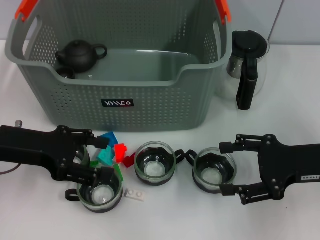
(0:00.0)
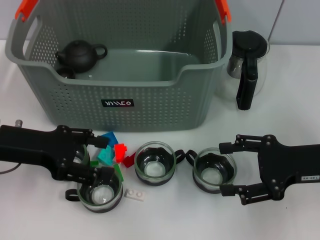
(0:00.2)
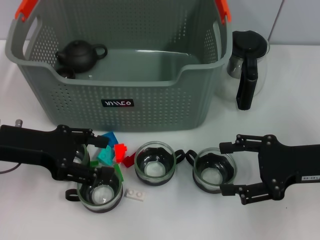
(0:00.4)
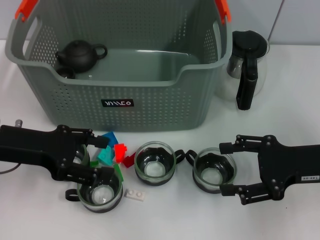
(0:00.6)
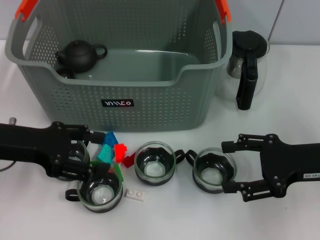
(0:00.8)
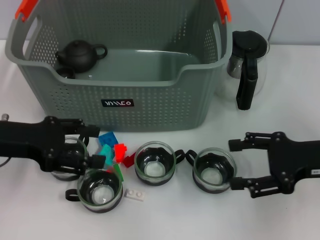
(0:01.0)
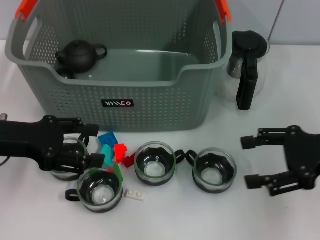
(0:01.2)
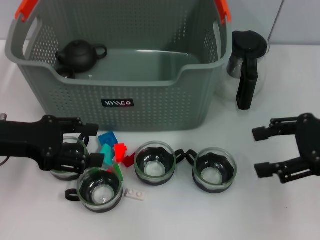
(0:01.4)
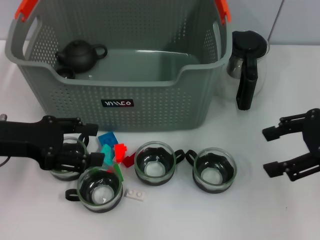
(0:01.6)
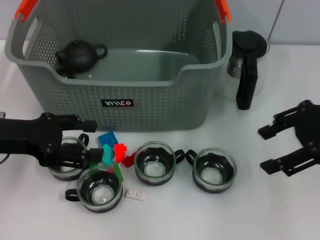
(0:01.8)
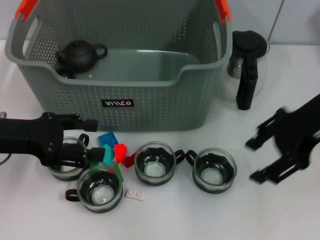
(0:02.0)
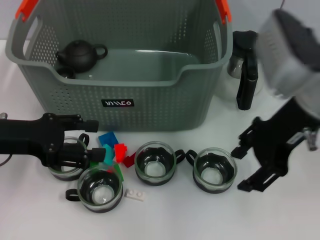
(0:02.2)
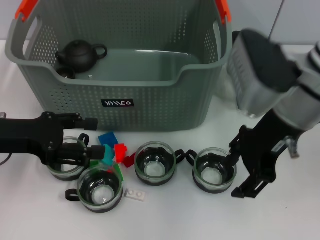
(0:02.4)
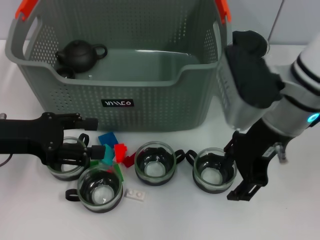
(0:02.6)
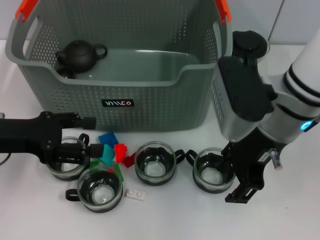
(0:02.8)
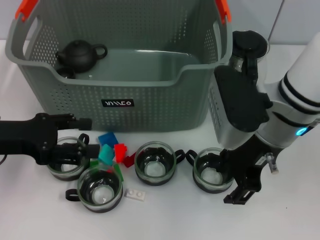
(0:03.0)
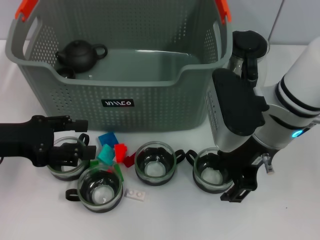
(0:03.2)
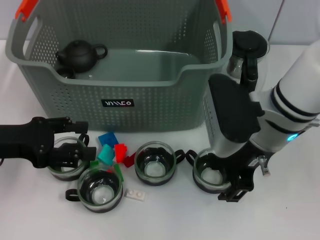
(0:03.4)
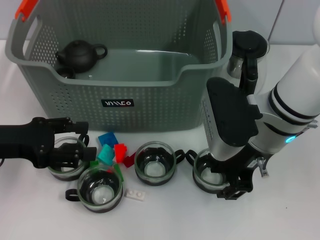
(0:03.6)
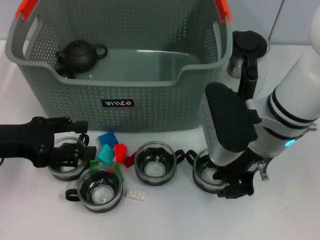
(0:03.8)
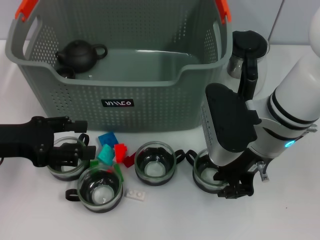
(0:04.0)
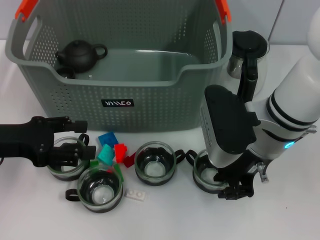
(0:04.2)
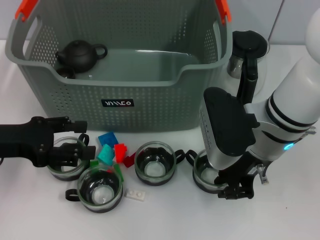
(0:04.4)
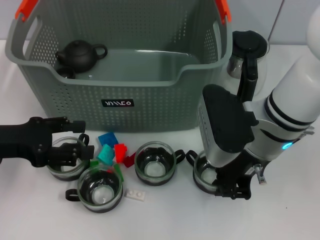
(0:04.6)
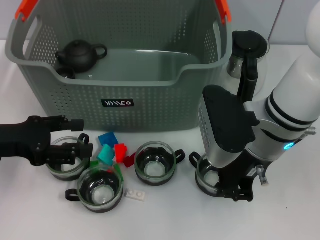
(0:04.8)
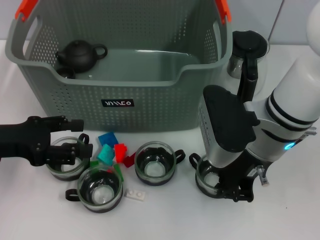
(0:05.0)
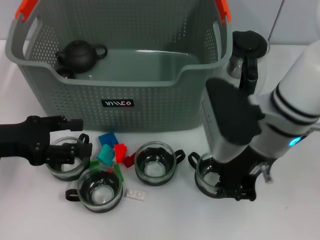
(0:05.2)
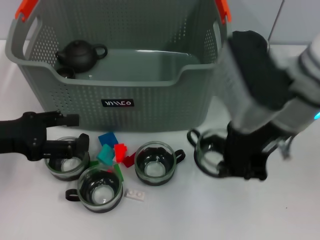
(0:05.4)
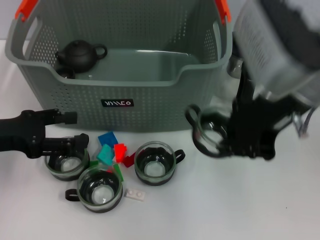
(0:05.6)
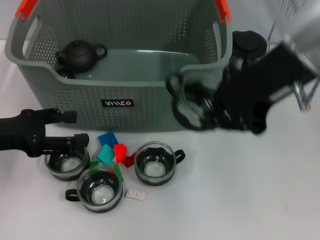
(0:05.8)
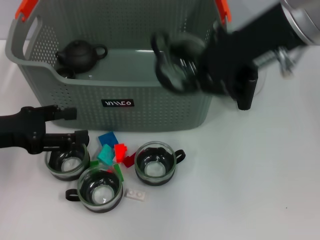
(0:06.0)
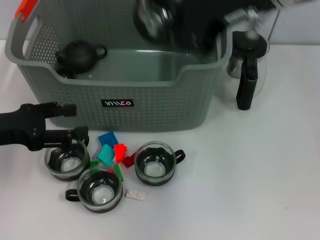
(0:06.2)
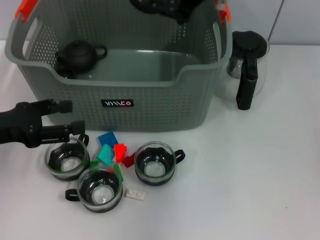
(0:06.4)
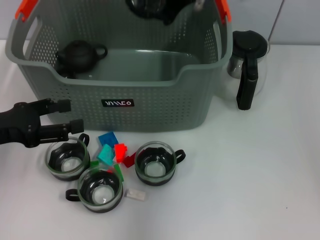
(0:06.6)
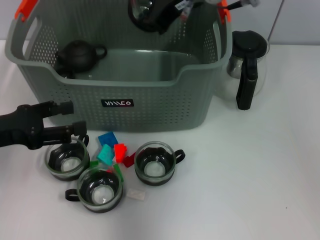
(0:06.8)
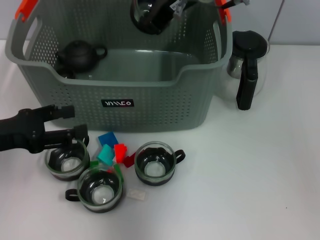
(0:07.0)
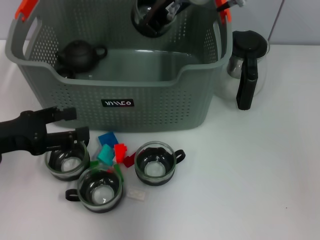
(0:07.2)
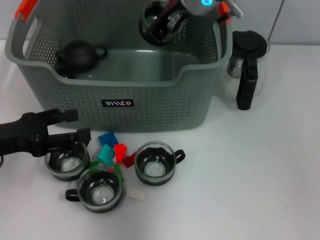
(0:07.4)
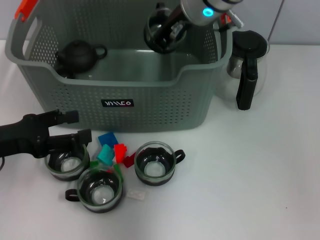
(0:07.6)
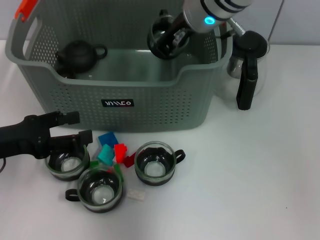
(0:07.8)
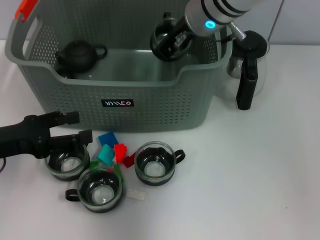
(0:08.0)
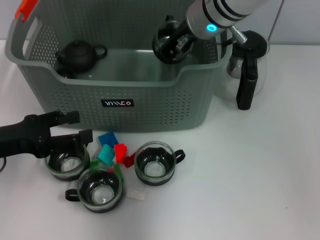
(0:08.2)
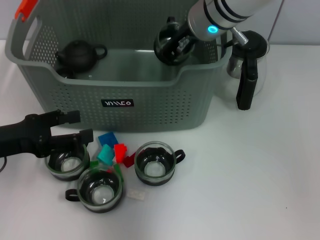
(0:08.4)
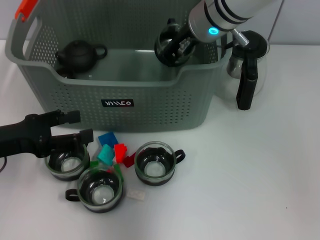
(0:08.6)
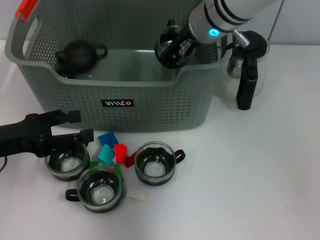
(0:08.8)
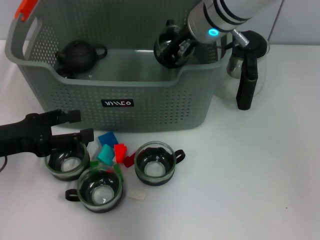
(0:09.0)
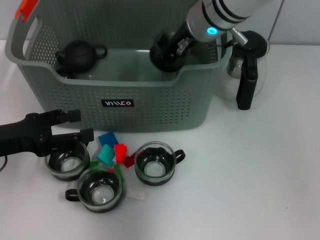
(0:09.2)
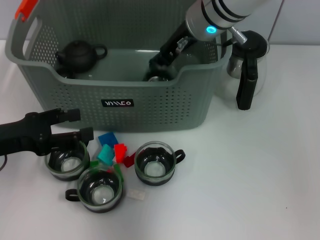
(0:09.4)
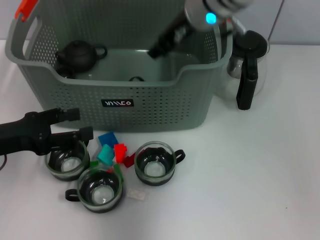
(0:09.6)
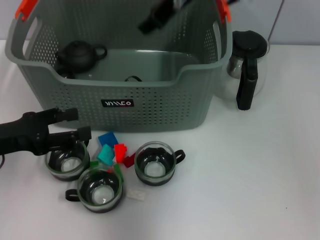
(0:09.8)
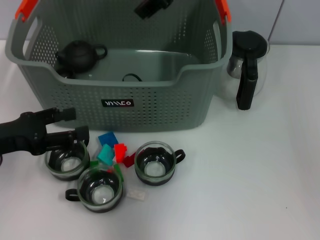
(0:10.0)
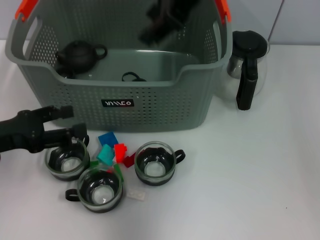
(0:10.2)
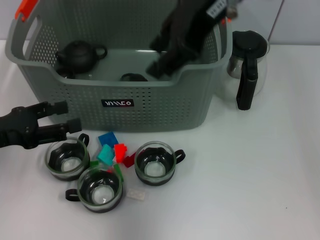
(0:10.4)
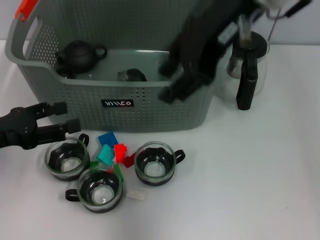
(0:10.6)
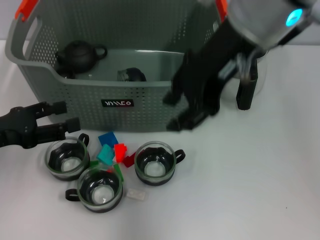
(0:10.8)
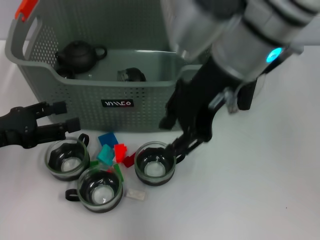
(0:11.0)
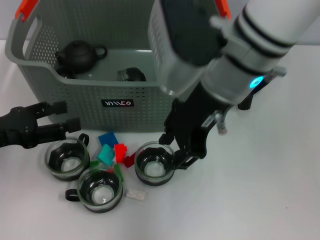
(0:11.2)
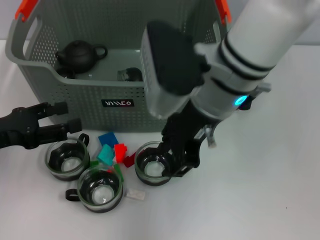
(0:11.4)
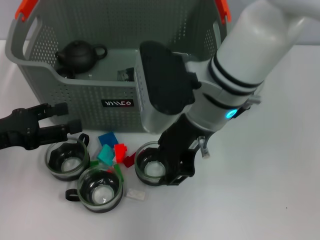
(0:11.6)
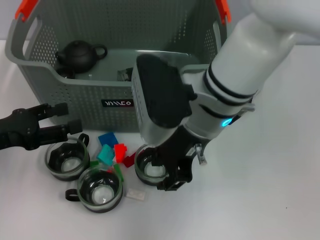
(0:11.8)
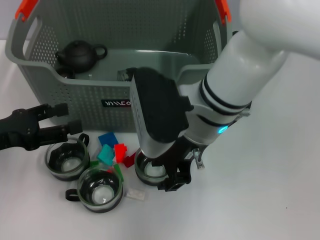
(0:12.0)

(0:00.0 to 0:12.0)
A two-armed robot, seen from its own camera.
Task of the whole recording: pick up the teacup on the table and place it into the storage bin, pick up the block on the table and place it into the storage bin.
Step, 0:00.0 - 0:05.2: Grasp the cup with right gripper.
Step, 0:05.4 - 0:09.8: Place the cup in the storage box with right gripper.
0:00.0 - 0:01.6: The right gripper shifts approximately 10 cm upward.
0:01.6 - 0:03.0: The right gripper moves to the left, about 15 cm.
0:03.0 - 0:04.4: The right gripper closes up.
0:04.4 - 0:06.0: The right gripper heads upward, covering about 15 cm.
0:06.0 - 0:07.6: The right gripper is displaced forward, downward and to the left by some 15 cm.
0:07.6 - 0:09.0: There are only small adjustments of the grippers.
0:09.0 - 0:10.4: The right gripper travels upward and backward by roughly 15 cm, and opens.
0:10.4 - 0:12.0: The right gripper goes about 20 cm downward.

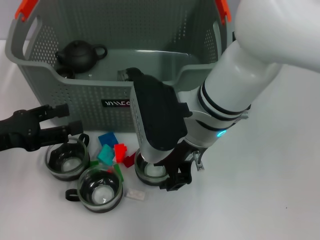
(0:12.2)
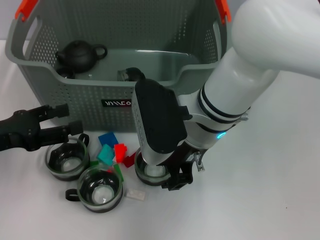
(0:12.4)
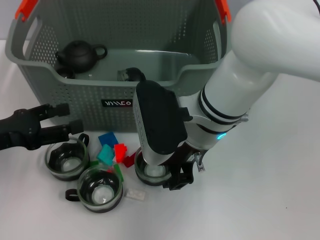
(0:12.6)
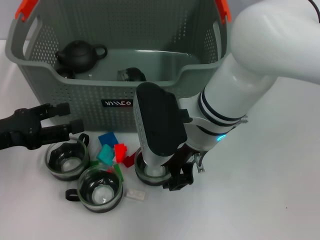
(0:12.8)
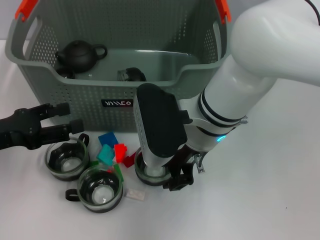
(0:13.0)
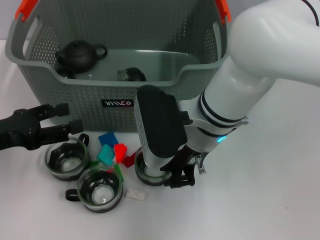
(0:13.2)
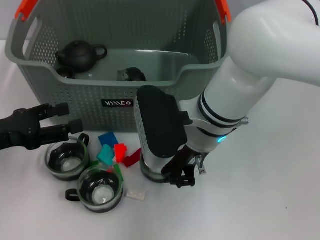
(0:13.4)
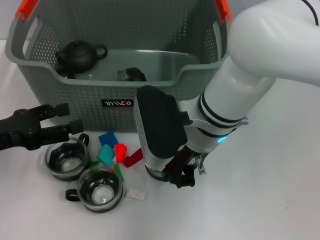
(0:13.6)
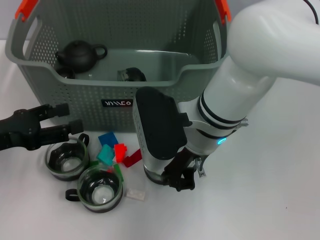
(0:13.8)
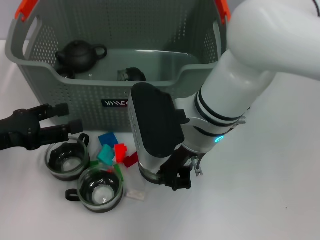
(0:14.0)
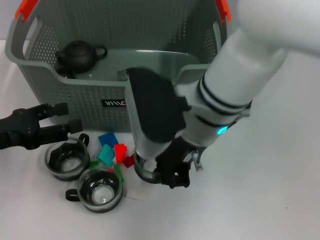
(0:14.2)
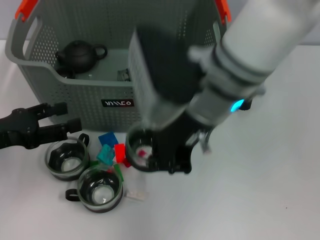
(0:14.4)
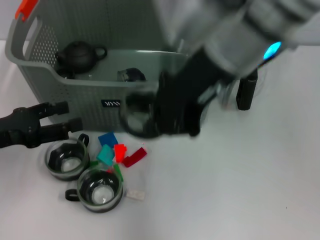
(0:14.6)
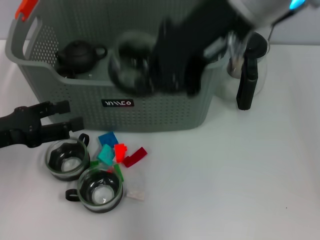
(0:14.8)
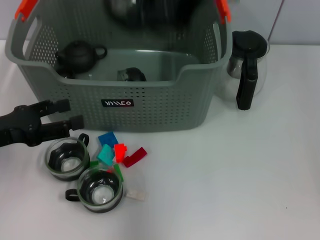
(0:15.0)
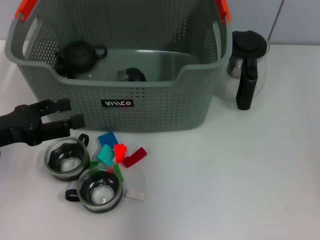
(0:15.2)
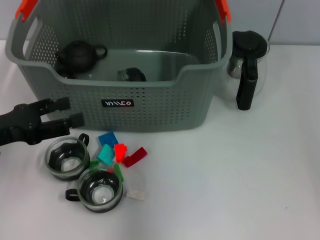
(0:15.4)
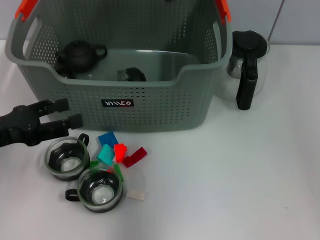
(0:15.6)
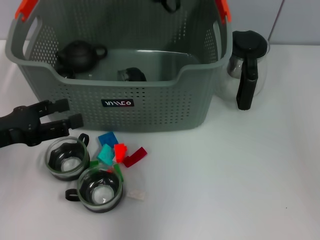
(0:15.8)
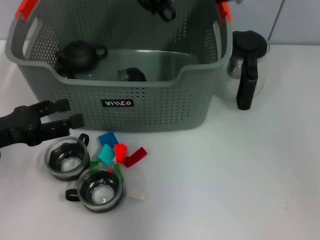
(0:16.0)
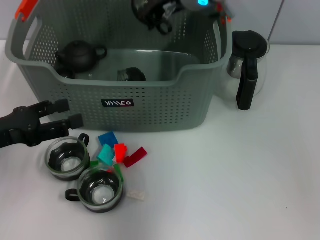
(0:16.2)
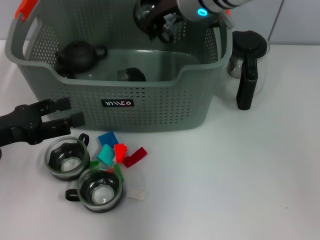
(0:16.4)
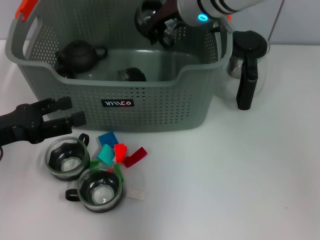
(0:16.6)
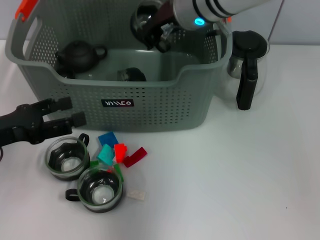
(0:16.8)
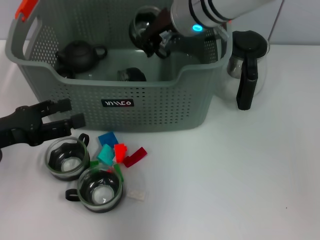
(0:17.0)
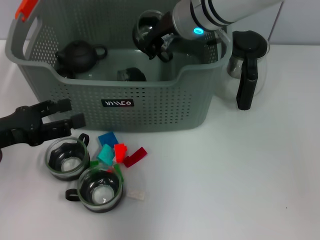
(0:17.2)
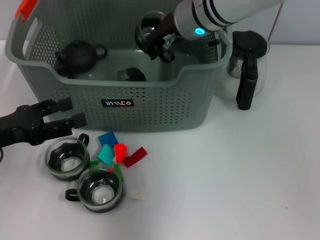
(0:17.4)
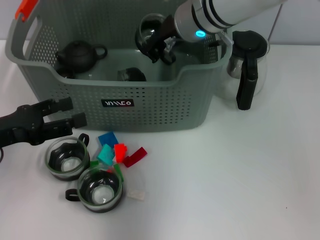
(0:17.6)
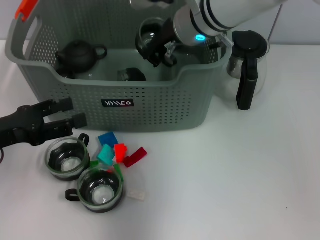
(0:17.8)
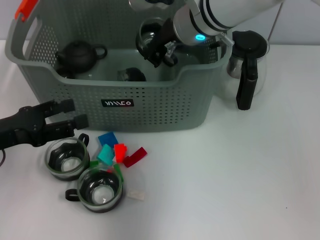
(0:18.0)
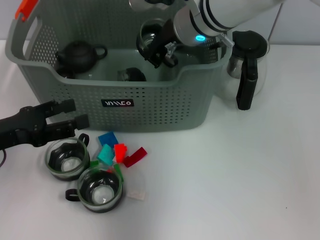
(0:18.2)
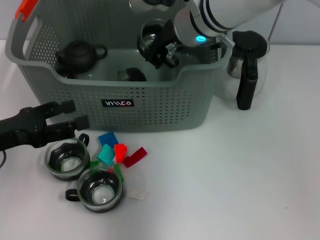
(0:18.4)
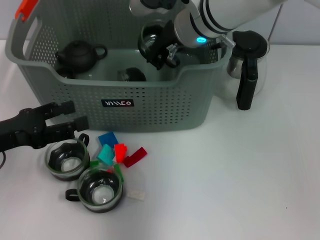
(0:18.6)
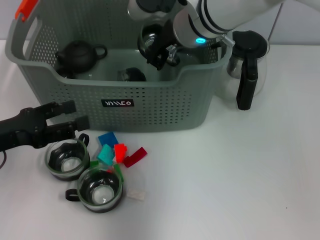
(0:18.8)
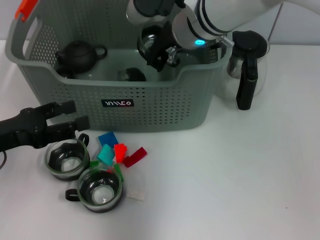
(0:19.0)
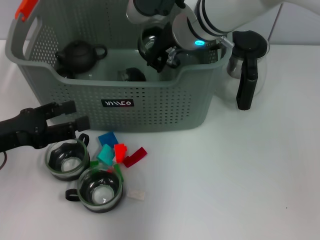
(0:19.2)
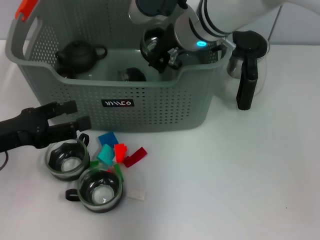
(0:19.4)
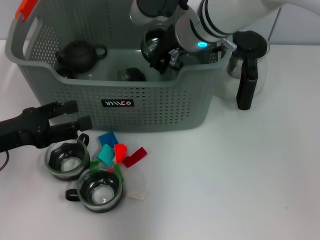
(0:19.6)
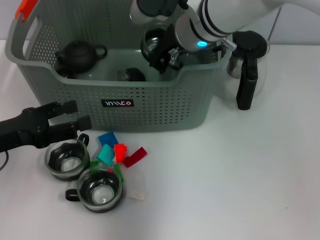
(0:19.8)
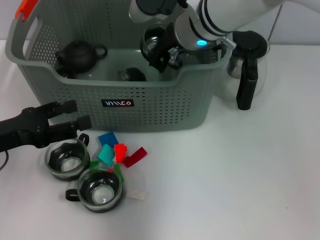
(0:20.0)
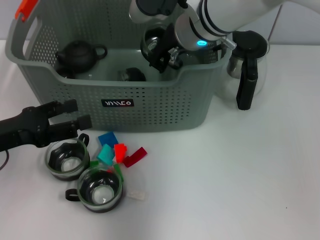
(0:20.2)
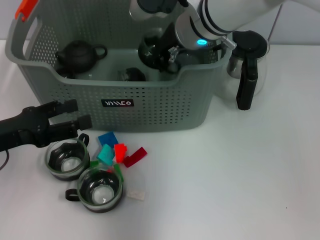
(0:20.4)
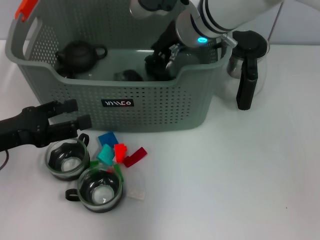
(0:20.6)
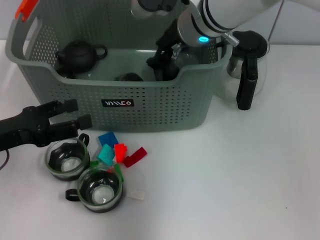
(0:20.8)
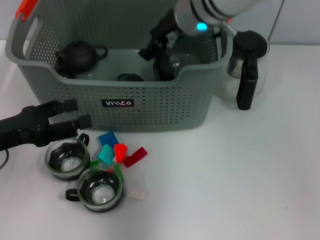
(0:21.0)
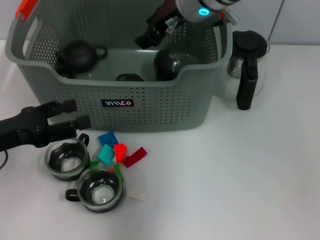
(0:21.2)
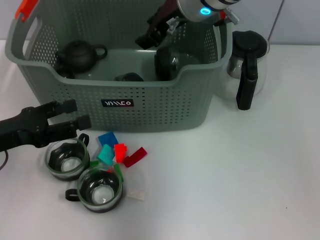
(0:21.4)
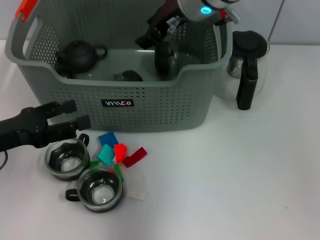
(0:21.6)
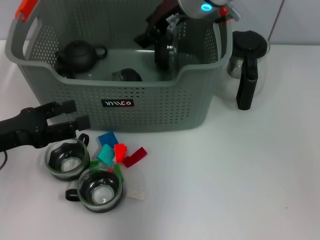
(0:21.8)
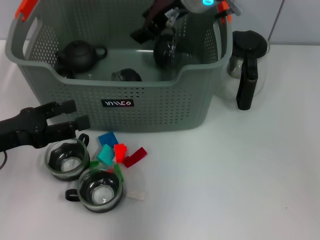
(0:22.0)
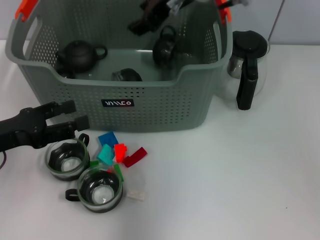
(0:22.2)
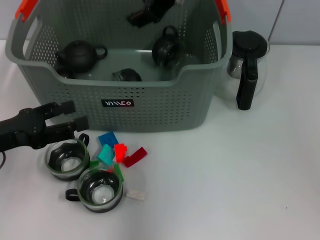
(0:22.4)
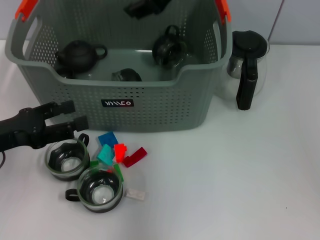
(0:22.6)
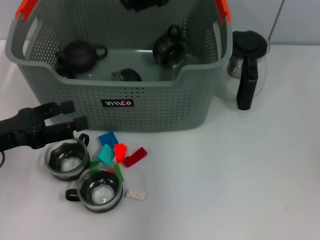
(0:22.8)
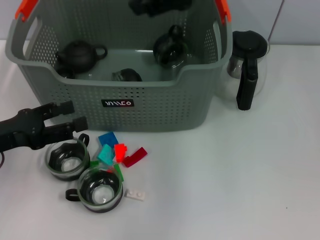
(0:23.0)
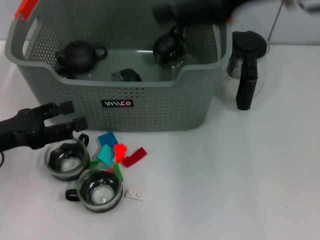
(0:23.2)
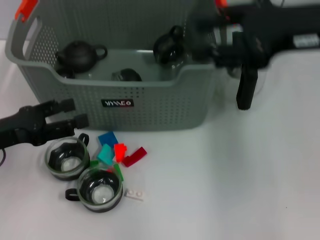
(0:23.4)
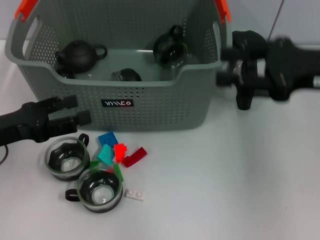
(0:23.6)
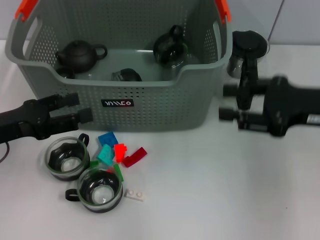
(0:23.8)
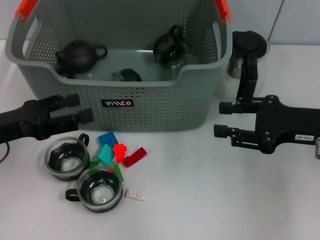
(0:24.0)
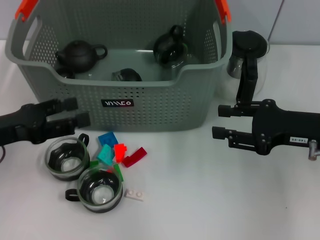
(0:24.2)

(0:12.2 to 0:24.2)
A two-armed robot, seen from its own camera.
Task of the whole recording: pick up the teacup on the table and place it into the storage bin, pick up the block on the table and place it into the storage bin.
Step, 0:12.2 - 0:14.2: Grasp the cup with right gripper.
Step, 0:14.4 - 0:21.4: Place the cup in the storage box with right gripper.
0:12.2 - 0:13.8: The right gripper closes.
0:13.8 - 0:15.2: The right gripper is displaced upward by roughly 20 cm.
0:15.2 - 0:16.6: The right gripper shifts approximately 15 cm downward and forward.
0:16.6 - 0:19.8: There are only small adjustments of the grippers.
0:19.8 - 0:21.2: The right gripper opens.
0:21.2 - 0:22.6: The right gripper moves upward, about 10 cm.
0:22.6 - 0:24.2: The right gripper is displaced downward, to the right and backward by some 30 cm.
